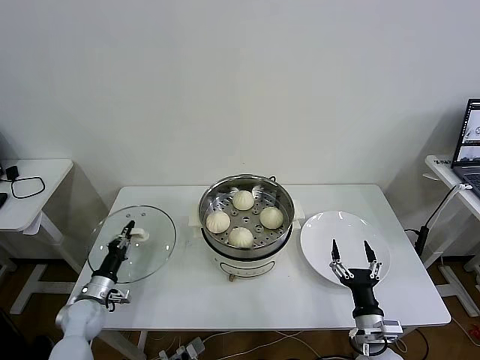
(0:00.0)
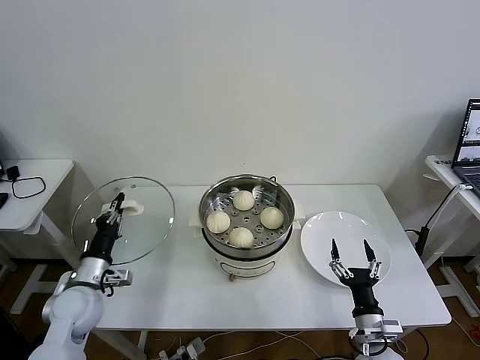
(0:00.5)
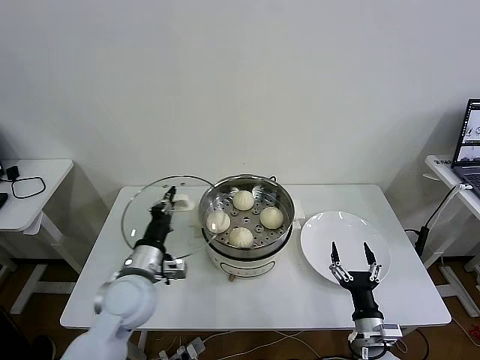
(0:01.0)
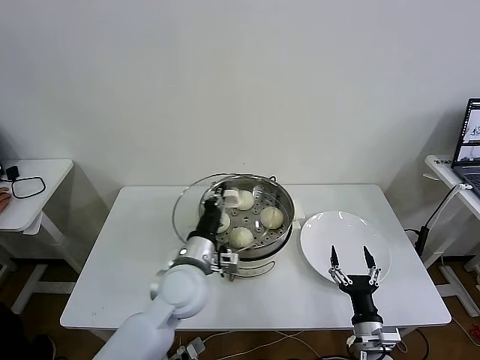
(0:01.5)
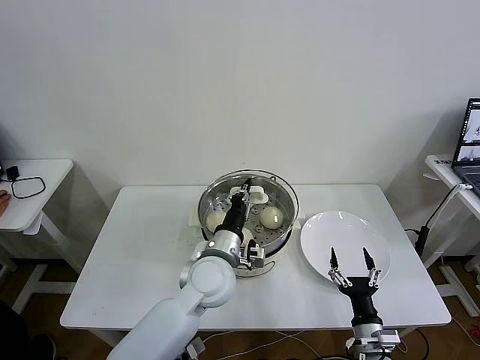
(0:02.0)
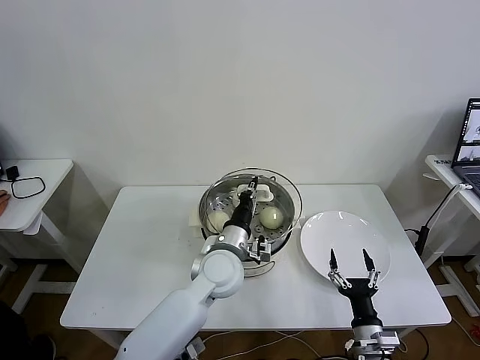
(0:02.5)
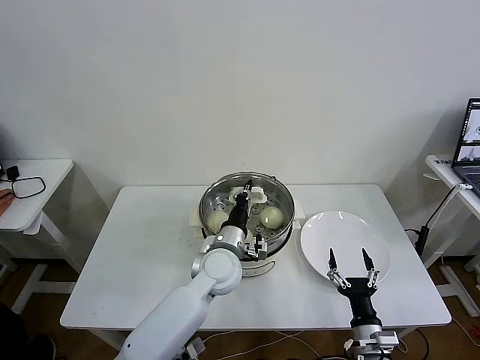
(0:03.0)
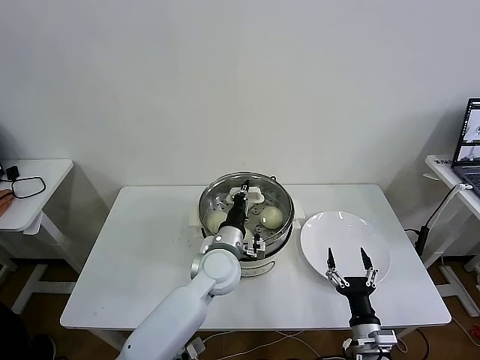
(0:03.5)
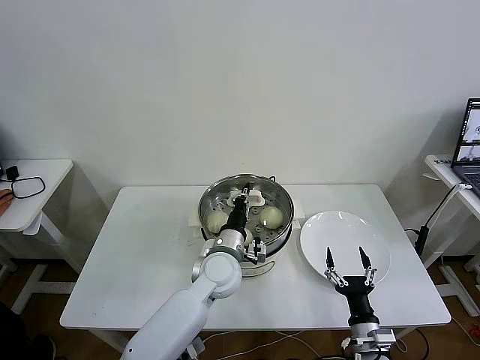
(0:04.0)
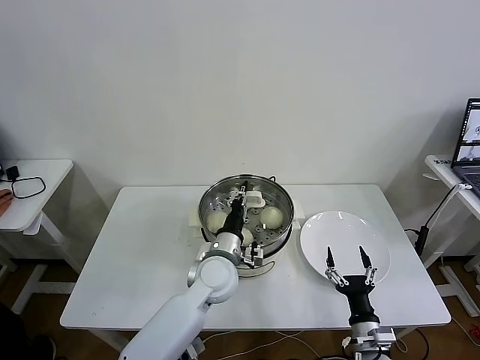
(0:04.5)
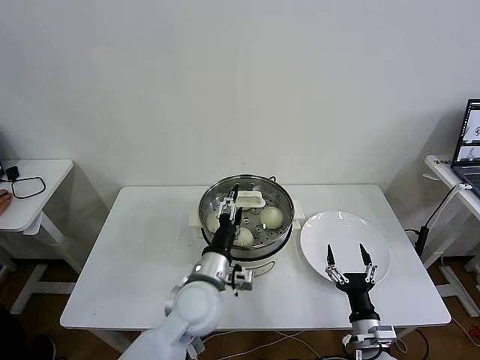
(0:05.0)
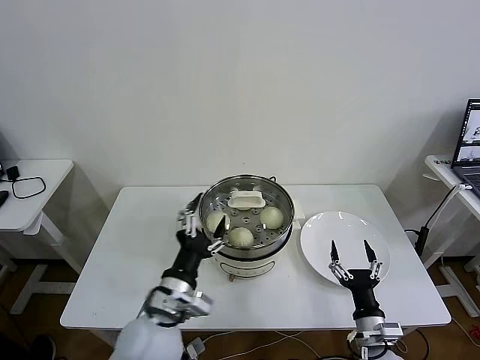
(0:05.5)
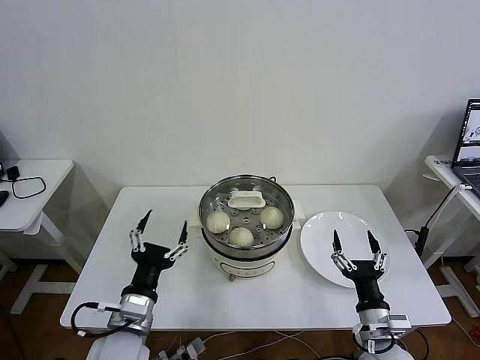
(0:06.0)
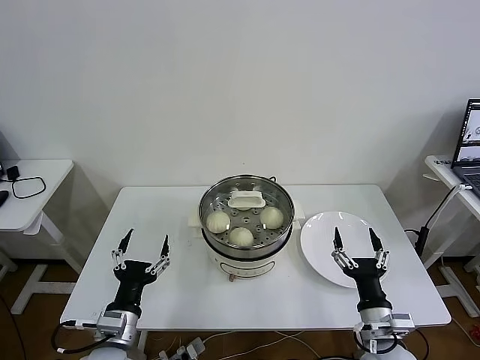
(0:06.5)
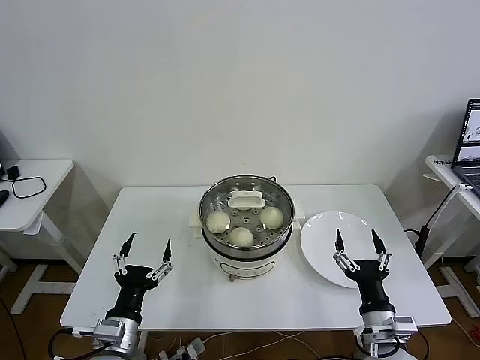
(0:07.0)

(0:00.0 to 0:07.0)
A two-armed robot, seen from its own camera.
Task of the whole recording: take steamed baozi put them in steamer then cover it.
Step, 0:00.0 - 0:04.5: Place the pot lid on the steamer with left gripper.
0:00.0 - 0:02.0: The left gripper shifts roughly 40 cm to the right and upward.
0:02.0 - 0:03.5: The left gripper moves about 5 cm.
0:03.5 - 0:05.0: The left gripper is displaced backward by roughly 5 cm, and opens.
0:05.0 - 0:07.0: The right gripper moves upward, some 10 cm; the left gripper moves to the left and backward, approximately 20 cm.

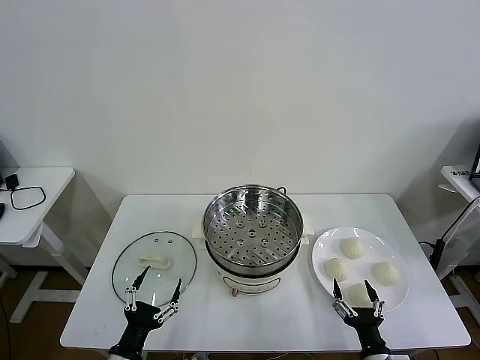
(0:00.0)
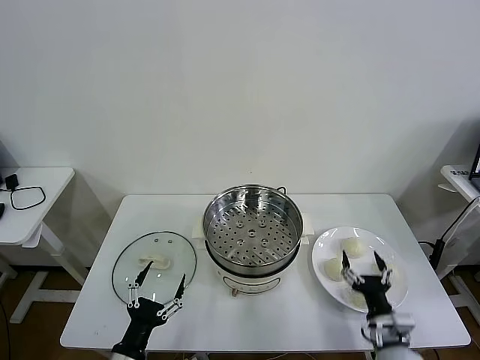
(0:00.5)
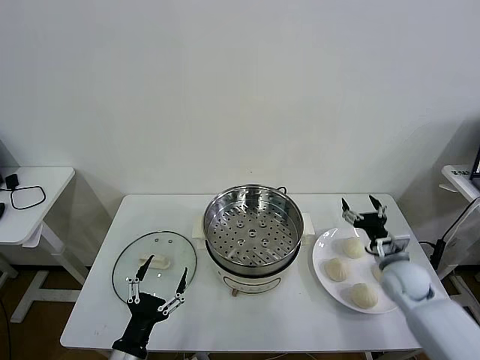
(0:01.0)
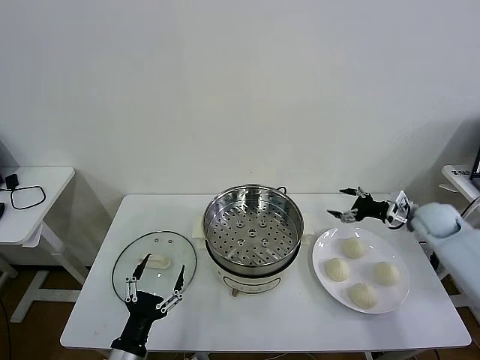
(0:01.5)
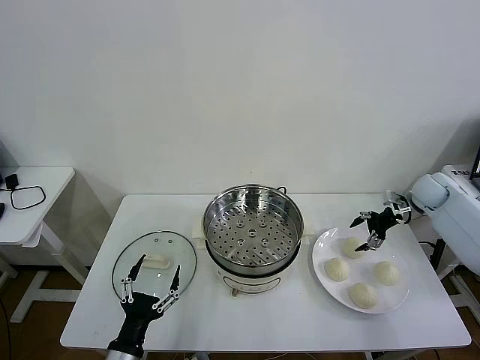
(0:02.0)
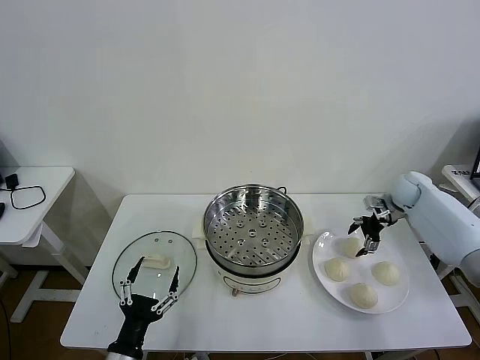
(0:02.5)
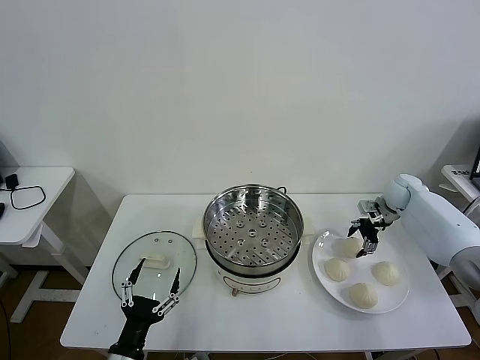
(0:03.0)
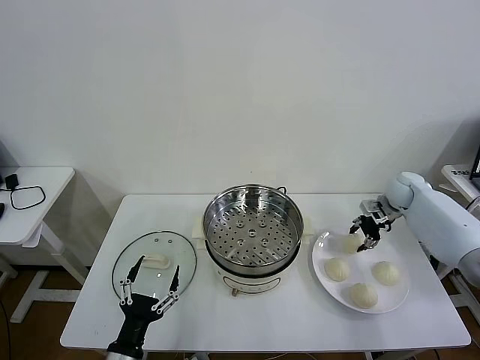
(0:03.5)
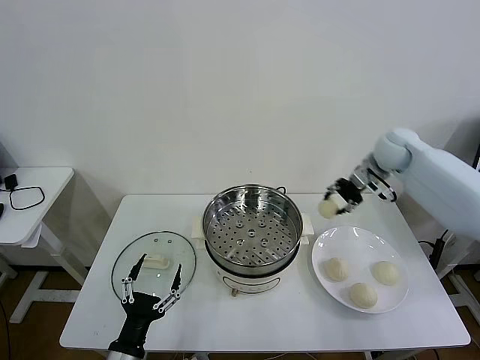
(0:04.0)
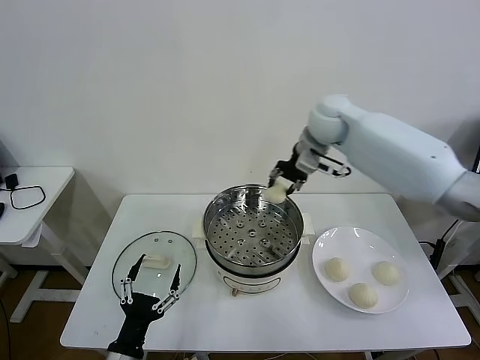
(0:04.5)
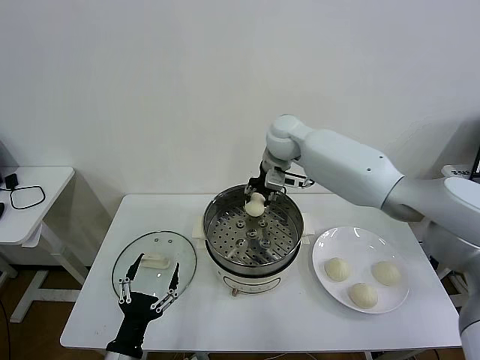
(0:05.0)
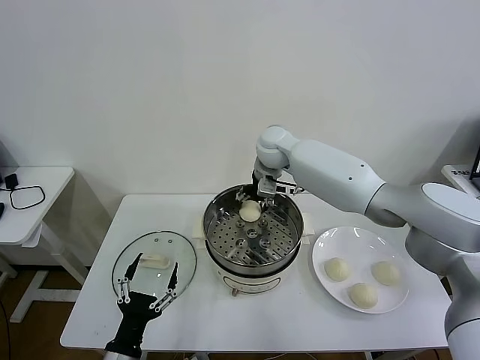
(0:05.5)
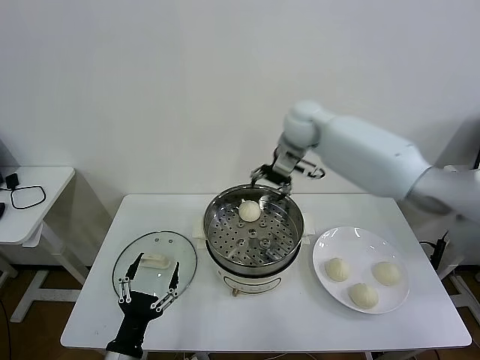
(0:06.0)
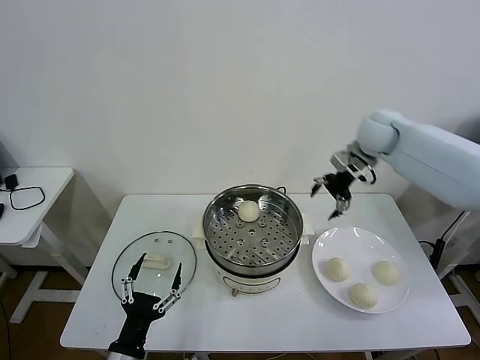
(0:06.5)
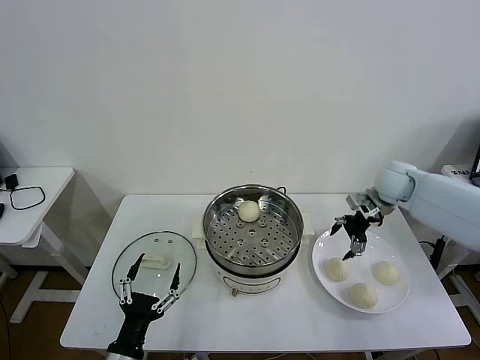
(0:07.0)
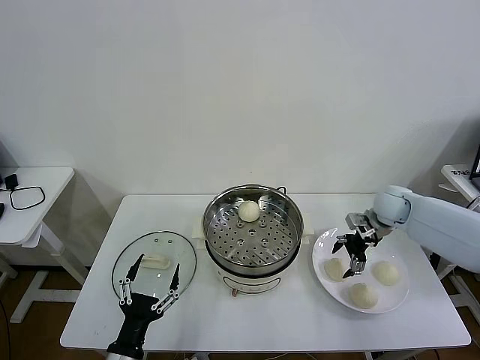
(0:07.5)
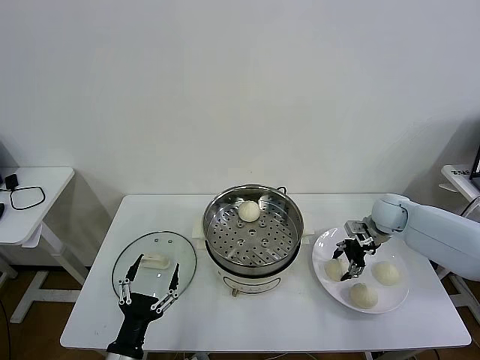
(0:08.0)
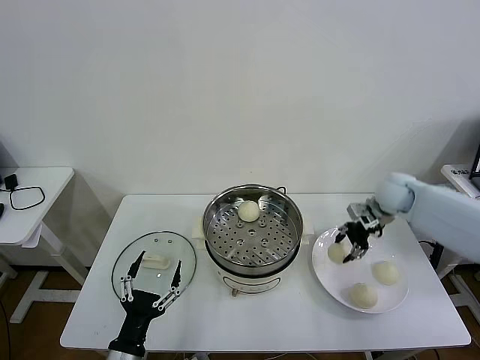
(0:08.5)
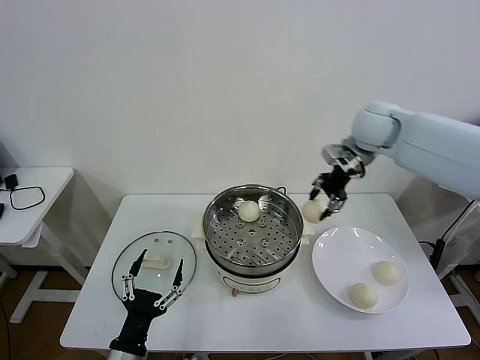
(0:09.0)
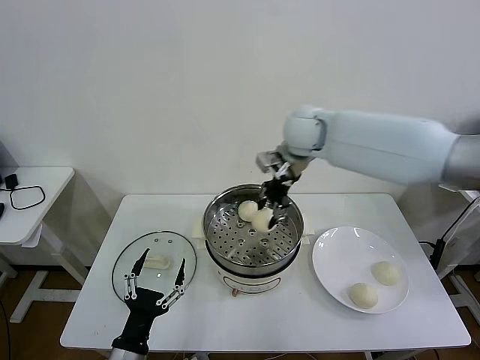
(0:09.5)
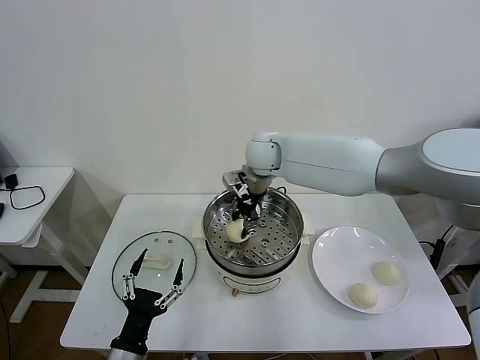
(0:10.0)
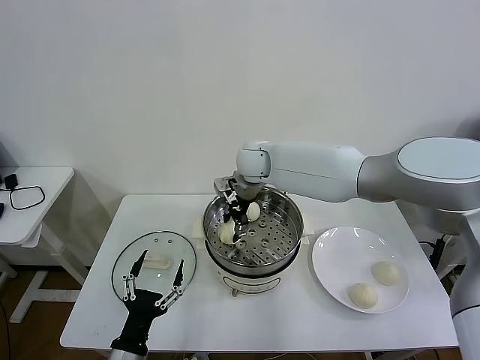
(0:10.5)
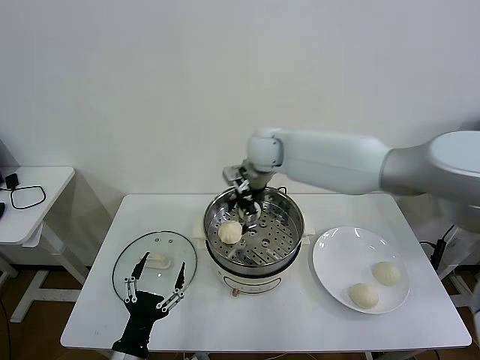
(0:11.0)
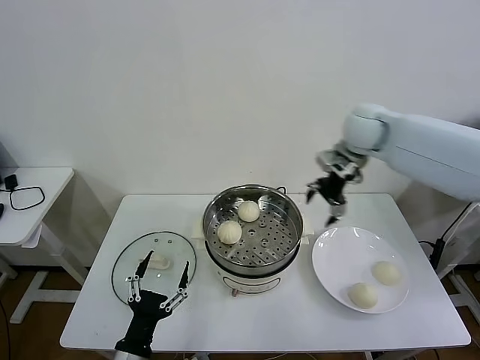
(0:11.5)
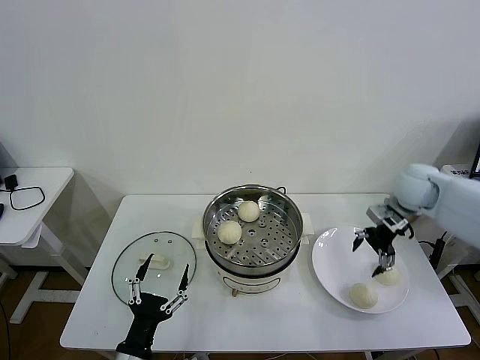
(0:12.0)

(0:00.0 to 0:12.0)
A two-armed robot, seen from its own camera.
Task of the whole recording: take steamed baozi put them in steamer then cover it.
Step, 0:00.0 - 0:03.0: Grasp the baozi in the plate with right gripper.
Step, 0:03.5 - 0:05.5: Place the baozi on the steamer with right gripper.
Step, 0:06.0 - 0:08.0: Grasp the baozi in the plate with right gripper.
Step, 0:08.5 - 0:10.5: Place the baozi on the steamer with right gripper.
0:02.0 - 0:04.0: The right gripper travels to the left and upward by approximately 20 cm, and closes its fingers.
0:04.0 - 0:06.0: The right gripper travels to the left by roughly 15 cm, and opens up.
0:06.0 - 0:08.0: The right gripper moves downward and to the right, about 30 cm, and closes up.
0:08.0 - 0:10.0: The right gripper is displaced to the left and upward by about 35 cm.
0:10.0 - 0:12.0: The right gripper is displaced to the right by roughly 35 cm, and opens its fingers.

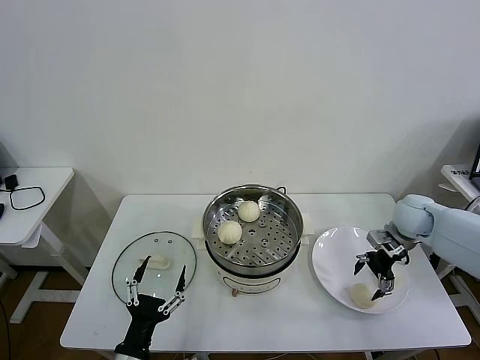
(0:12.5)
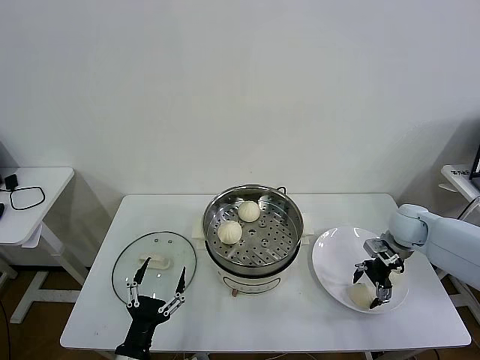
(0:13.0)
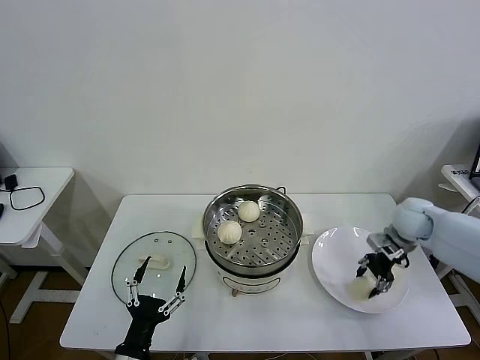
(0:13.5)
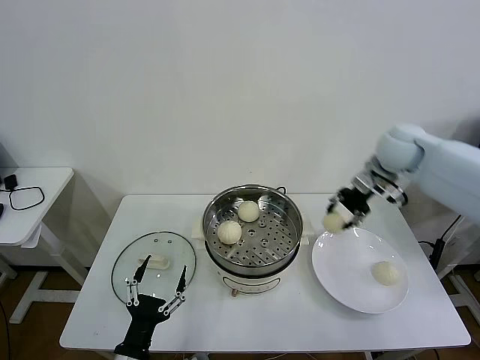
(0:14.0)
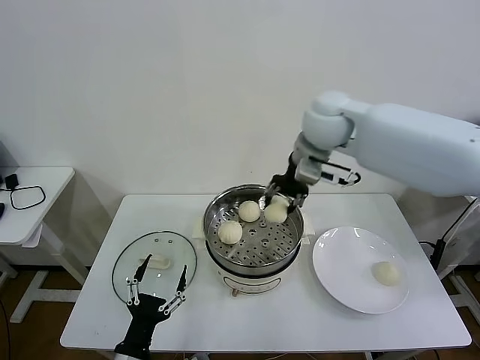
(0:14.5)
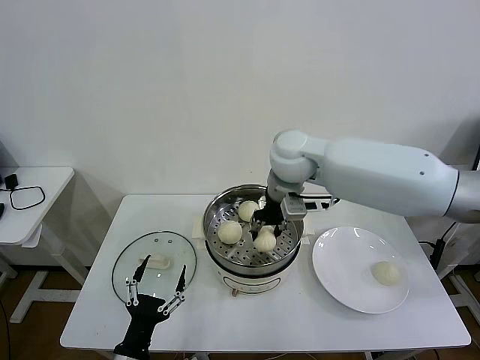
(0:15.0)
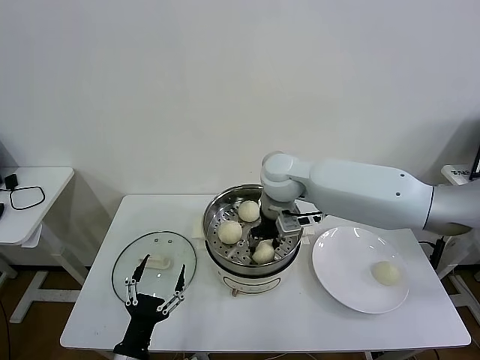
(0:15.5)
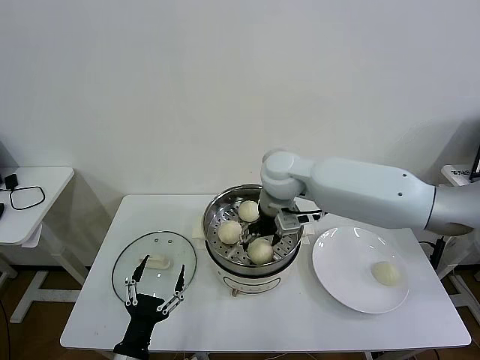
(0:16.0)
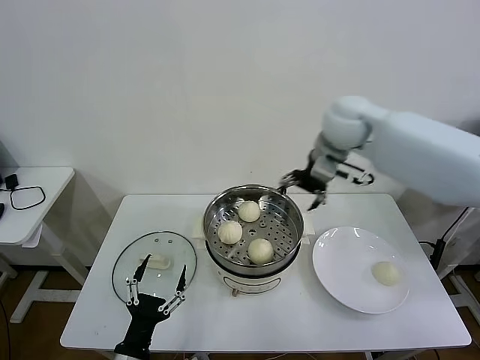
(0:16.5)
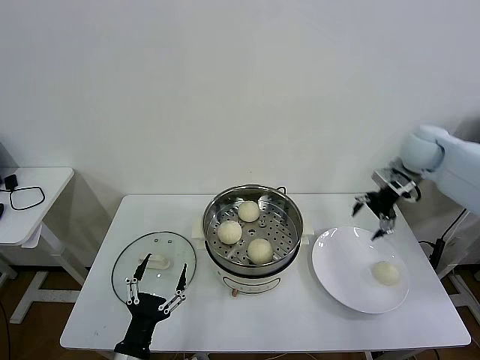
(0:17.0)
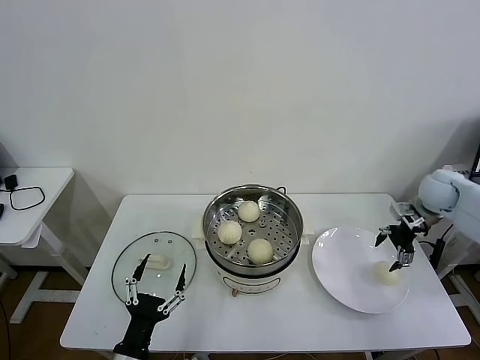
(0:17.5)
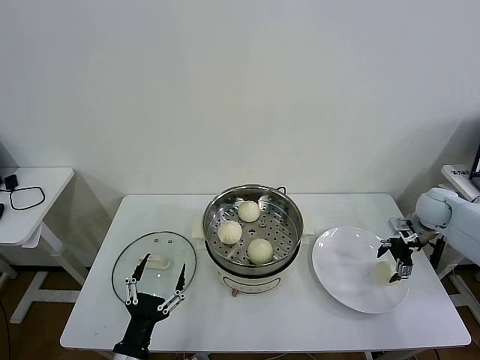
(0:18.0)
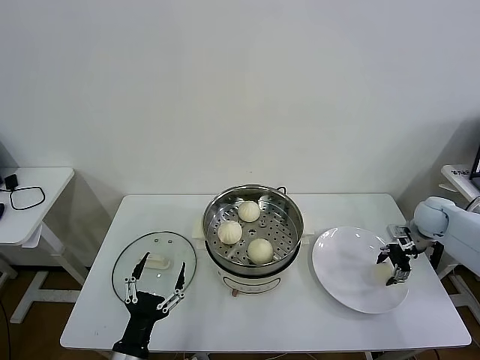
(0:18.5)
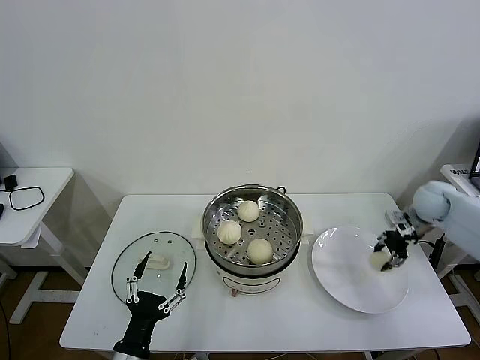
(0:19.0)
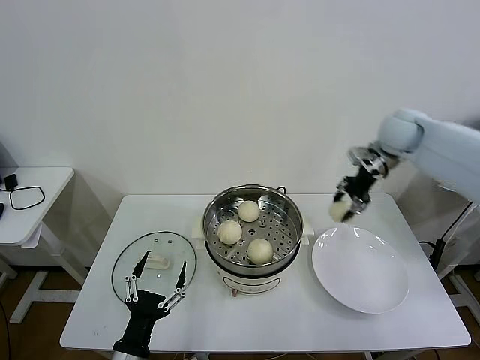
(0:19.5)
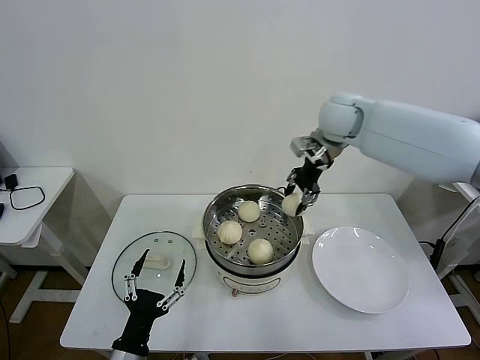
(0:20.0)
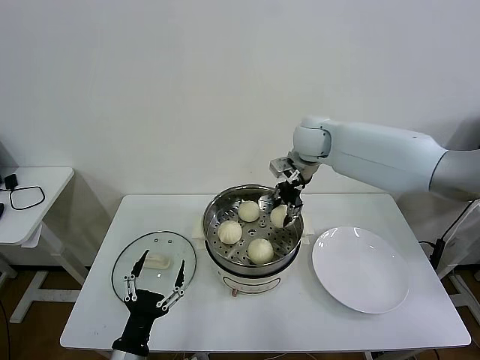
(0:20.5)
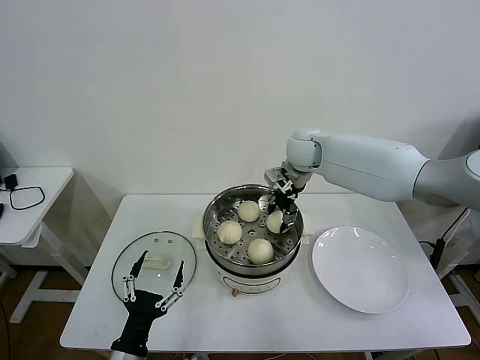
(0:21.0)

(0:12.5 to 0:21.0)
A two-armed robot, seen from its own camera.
Task of the whole recording: take steamed baozi put them in steamer then cover it.
Step, 0:13.5 - 0:15.5: Place the baozi on the steamer with right gripper.
Step, 0:16.0 - 0:18.5: Grasp the baozi in the plate with right gripper.
0:12.5 - 0:14.5: The right gripper goes about 35 cm to the left and upward, and closes.
0:14.5 - 0:16.5: The right gripper travels to the right by roughly 10 cm, and opens up.
0:16.5 - 0:19.0: The right gripper heads to the right and downward, covering approximately 30 cm, and closes its fingers.
0:19.0 - 0:21.0: The right gripper travels to the left by about 30 cm.
